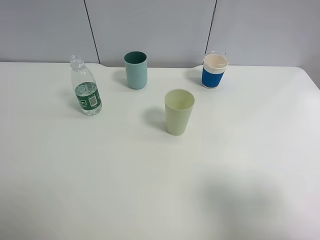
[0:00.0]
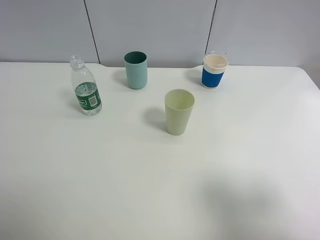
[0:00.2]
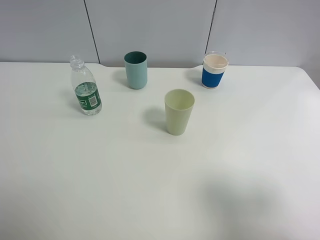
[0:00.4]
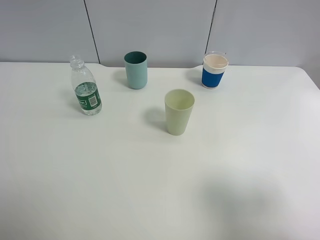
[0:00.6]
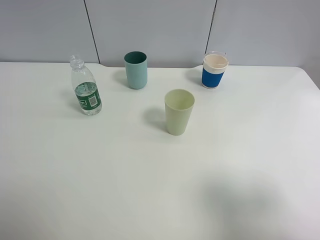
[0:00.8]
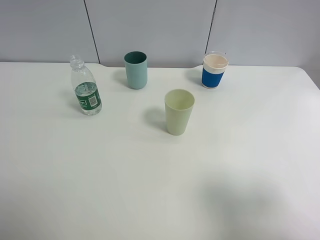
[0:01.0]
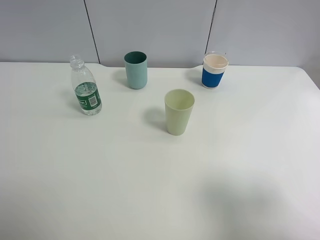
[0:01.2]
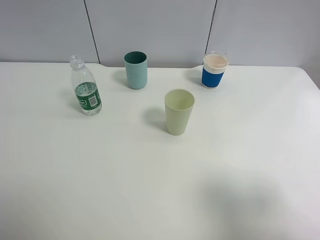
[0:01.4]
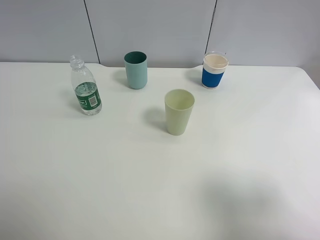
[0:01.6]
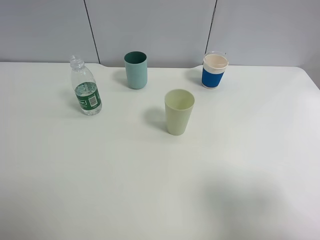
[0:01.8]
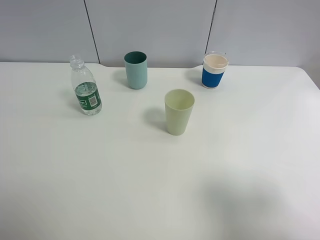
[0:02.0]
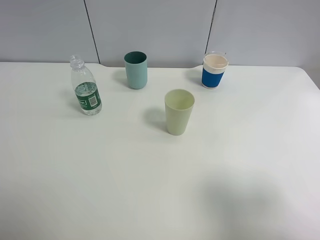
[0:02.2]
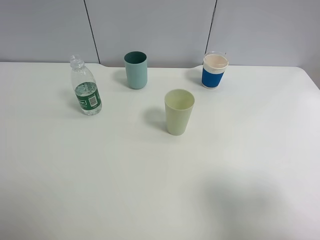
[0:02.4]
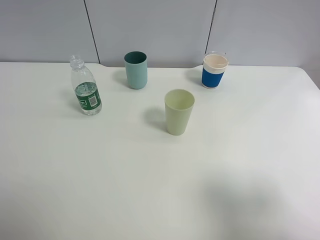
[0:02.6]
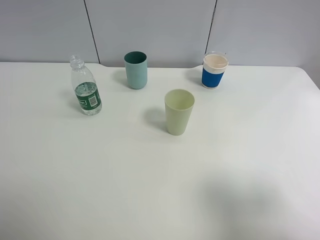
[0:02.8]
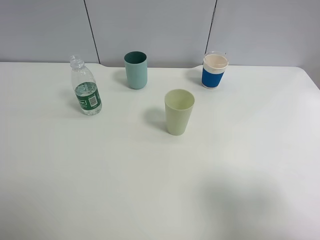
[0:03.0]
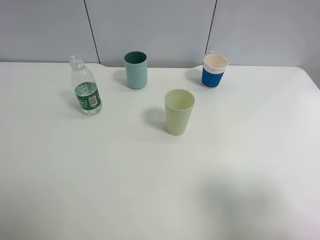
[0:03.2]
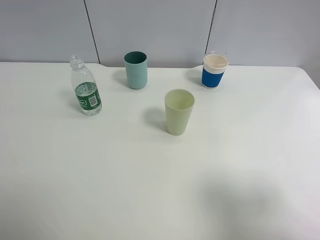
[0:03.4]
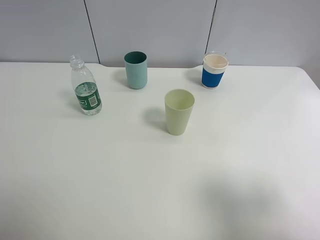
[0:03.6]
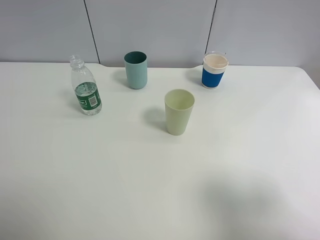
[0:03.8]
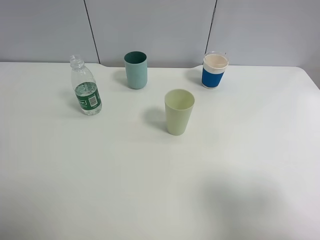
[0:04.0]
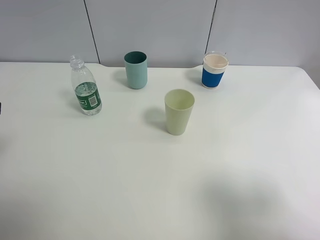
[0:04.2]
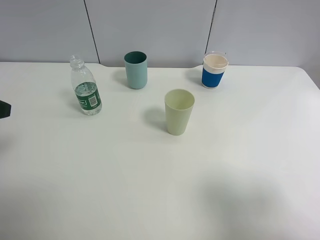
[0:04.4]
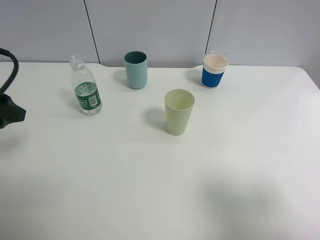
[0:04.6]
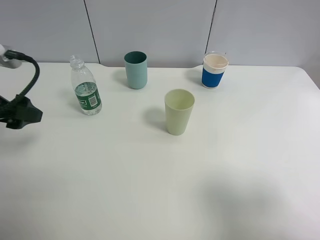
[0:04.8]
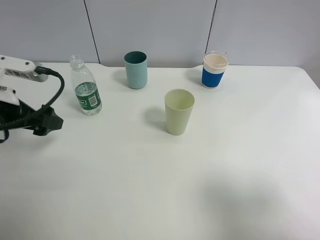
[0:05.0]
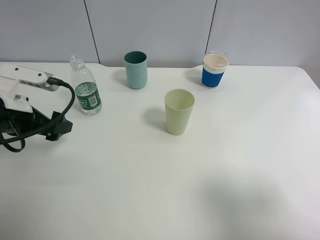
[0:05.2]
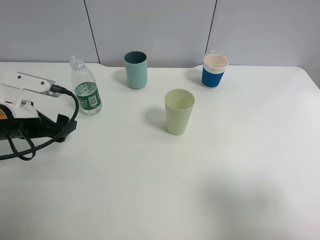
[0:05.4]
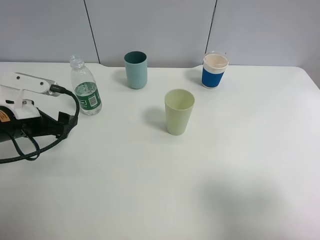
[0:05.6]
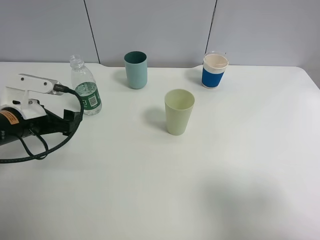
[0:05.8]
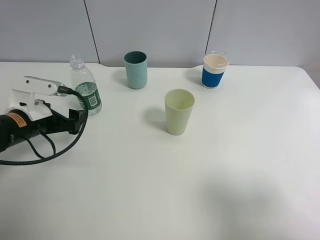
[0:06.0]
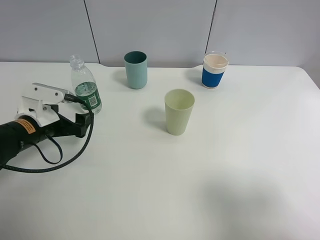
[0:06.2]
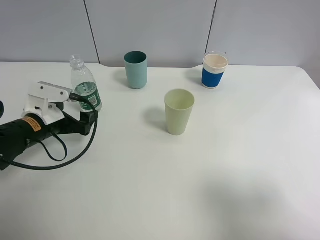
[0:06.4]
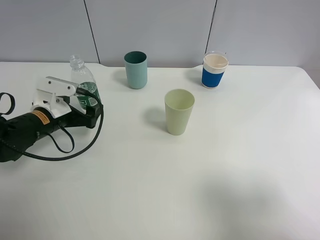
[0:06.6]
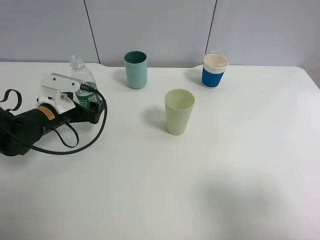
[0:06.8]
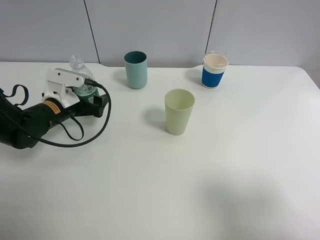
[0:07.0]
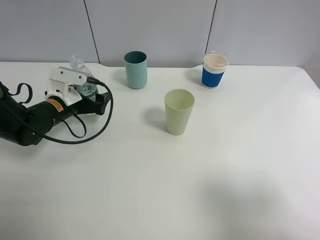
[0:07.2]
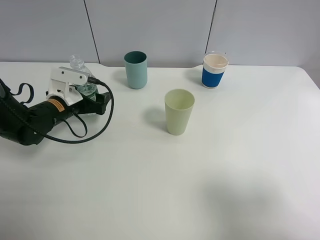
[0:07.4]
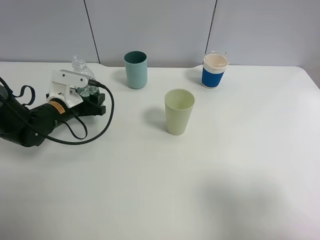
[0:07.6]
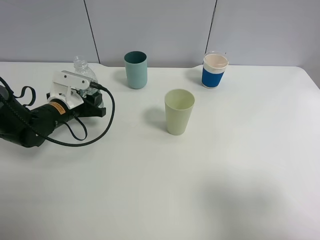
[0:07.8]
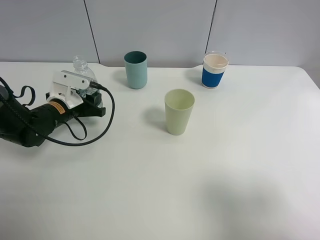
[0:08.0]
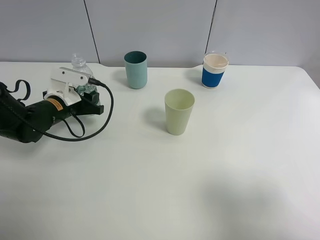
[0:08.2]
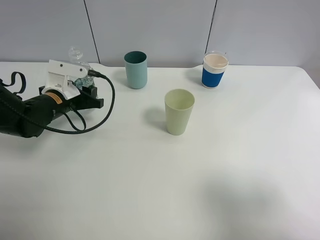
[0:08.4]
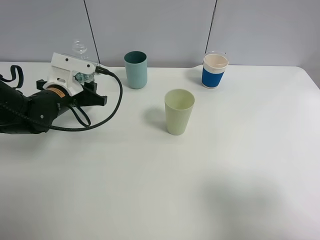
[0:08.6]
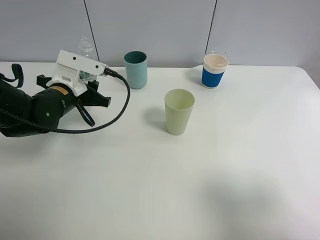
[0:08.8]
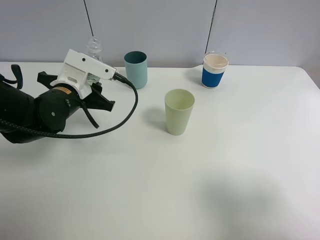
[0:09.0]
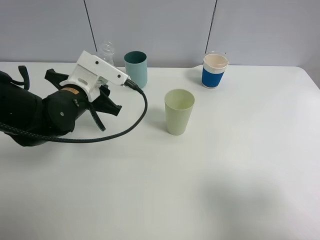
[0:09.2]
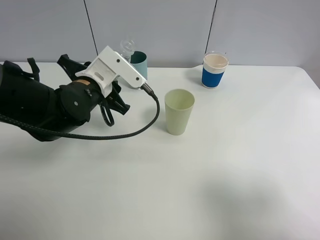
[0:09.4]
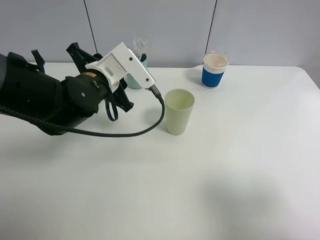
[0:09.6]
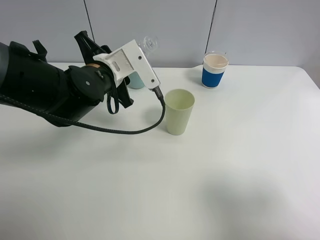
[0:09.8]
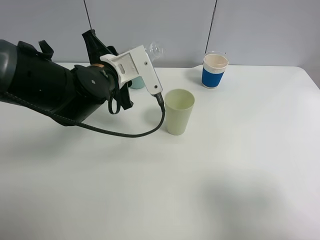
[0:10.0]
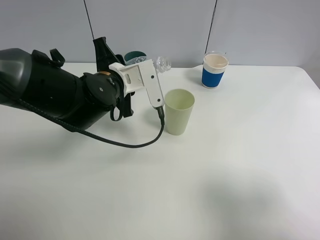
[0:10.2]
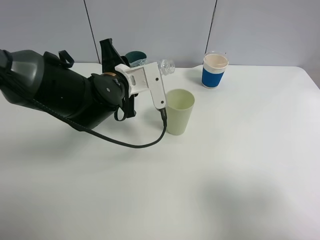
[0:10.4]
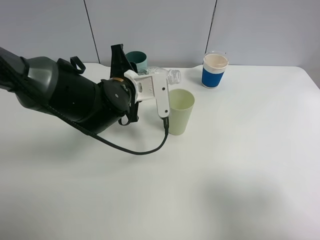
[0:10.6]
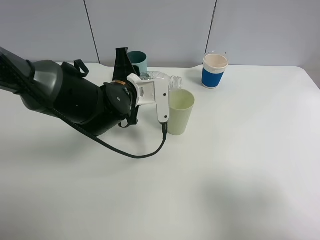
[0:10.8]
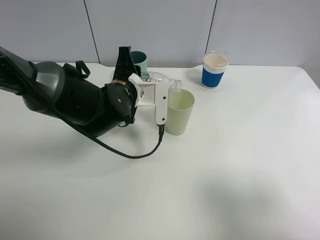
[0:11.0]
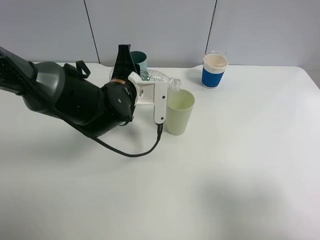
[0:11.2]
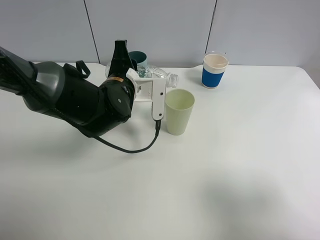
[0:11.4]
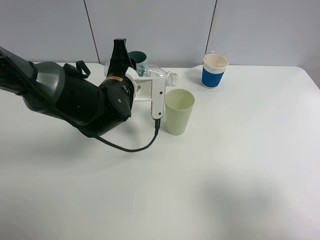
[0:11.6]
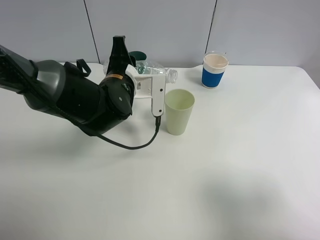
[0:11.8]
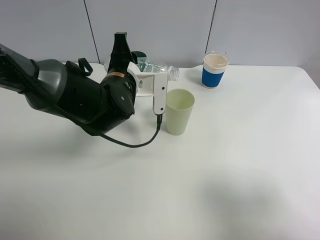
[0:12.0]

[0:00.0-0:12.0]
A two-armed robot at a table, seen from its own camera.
Task of the whole recording: use a clamp to hold the bottle of the drink, pour the beverage into a random cup, then clamp the cup containing the drink and pour the drink into another random cup.
Step, 0:00.0 to 0:08.4: Pick up the water bottle with left gripper.
0:00.0 to 0:03.0: Neither gripper changes place.
0:04.4 to 0:06.0: The left gripper travels downward and forward by roughly 15 cm.
0:06.0 to 0:07.6: The left gripper is displaced forward by roughly 10 cm, and closes.
0:07.6 to 0:09.0: The left gripper heads upward and to the right, covering some 10 cm.
0:09.0 to 0:10.4: The left gripper moves to the right, about 10 cm.
0:10.4 to 0:12.0: There are only small adjustments of the grippers.

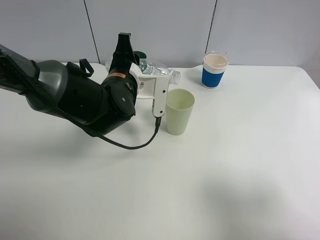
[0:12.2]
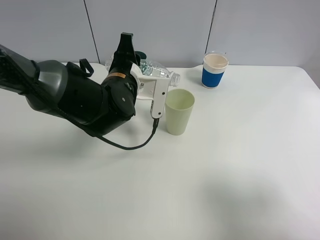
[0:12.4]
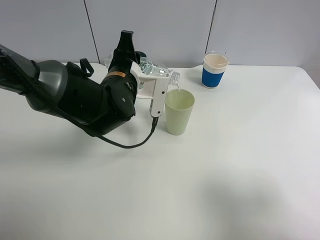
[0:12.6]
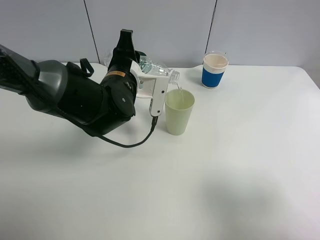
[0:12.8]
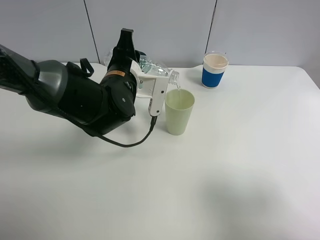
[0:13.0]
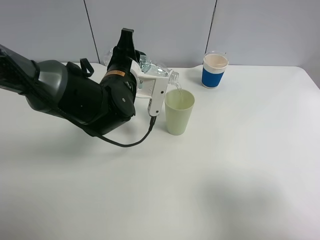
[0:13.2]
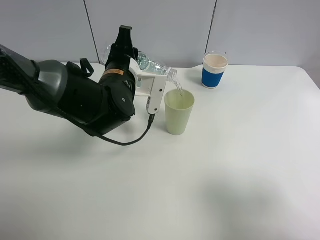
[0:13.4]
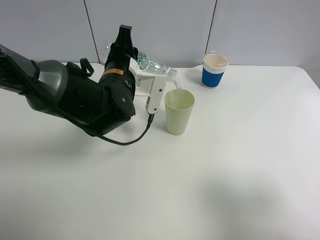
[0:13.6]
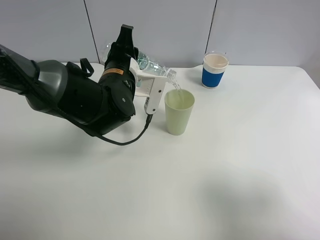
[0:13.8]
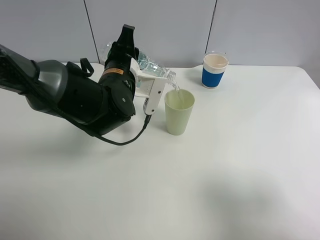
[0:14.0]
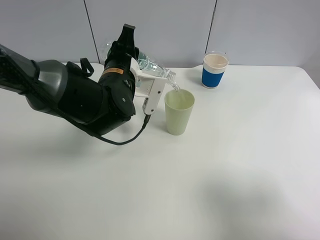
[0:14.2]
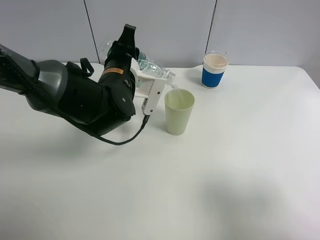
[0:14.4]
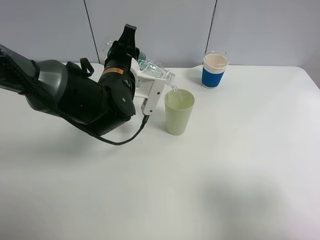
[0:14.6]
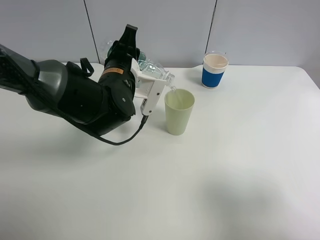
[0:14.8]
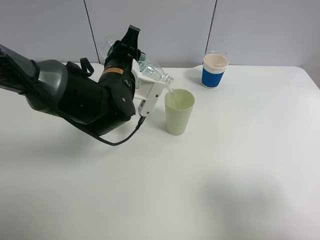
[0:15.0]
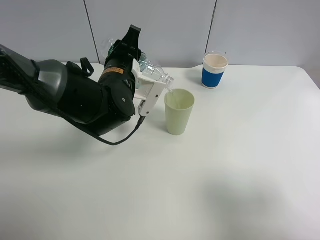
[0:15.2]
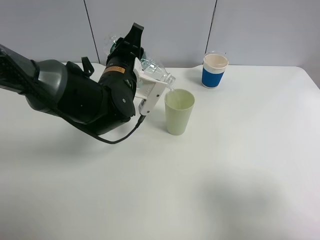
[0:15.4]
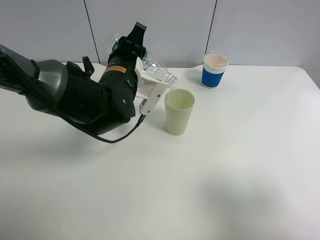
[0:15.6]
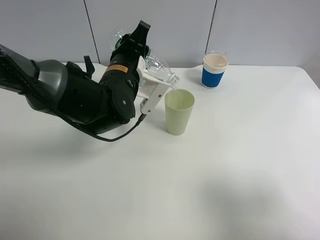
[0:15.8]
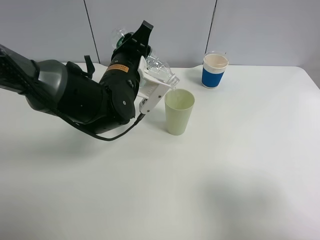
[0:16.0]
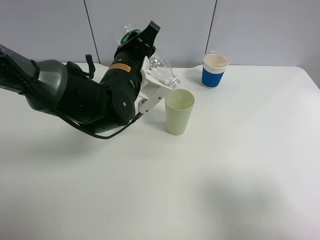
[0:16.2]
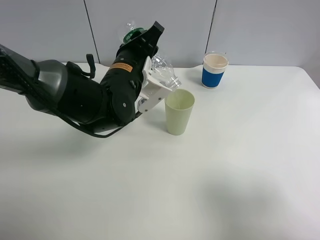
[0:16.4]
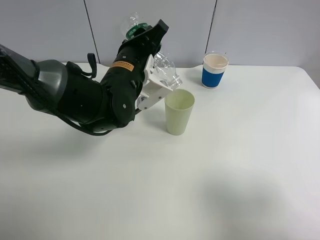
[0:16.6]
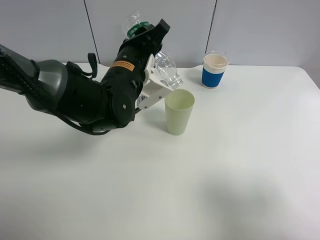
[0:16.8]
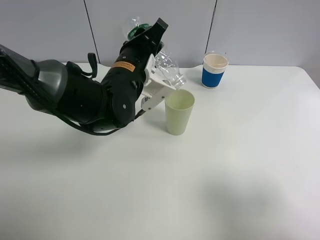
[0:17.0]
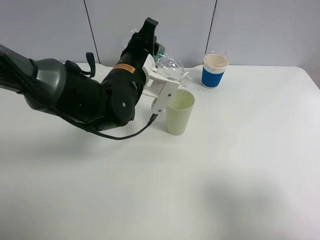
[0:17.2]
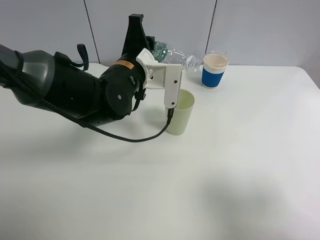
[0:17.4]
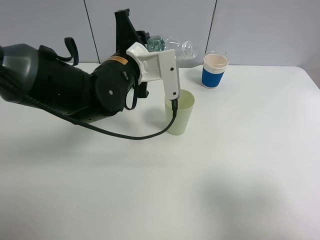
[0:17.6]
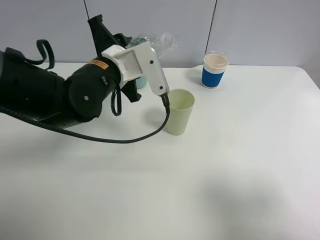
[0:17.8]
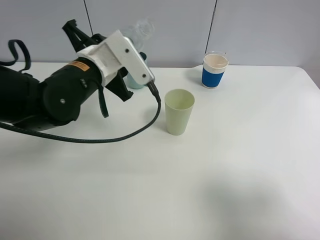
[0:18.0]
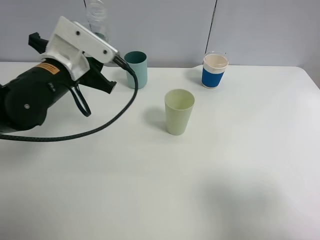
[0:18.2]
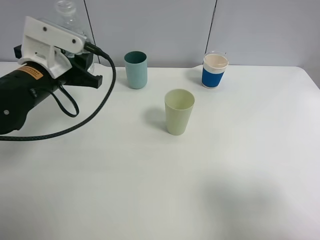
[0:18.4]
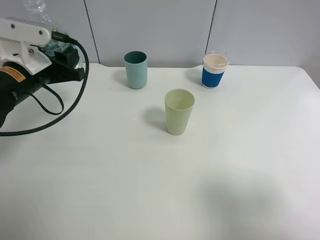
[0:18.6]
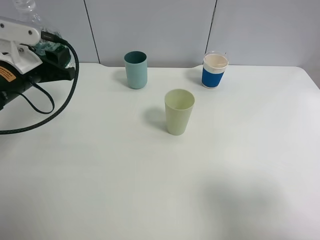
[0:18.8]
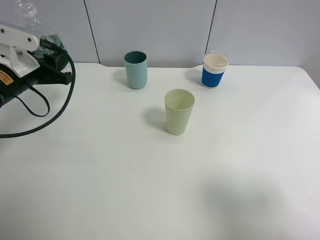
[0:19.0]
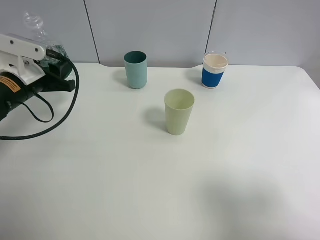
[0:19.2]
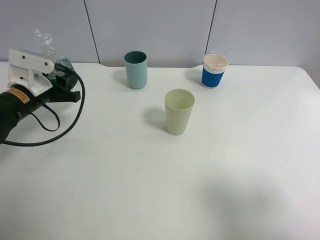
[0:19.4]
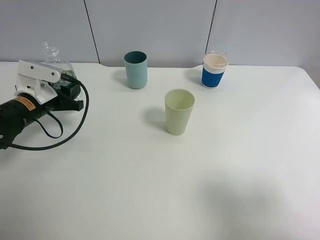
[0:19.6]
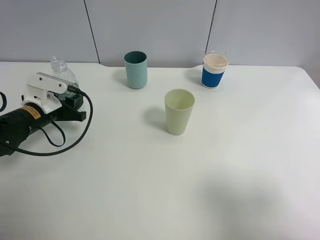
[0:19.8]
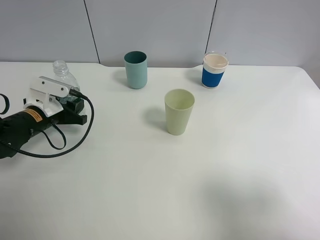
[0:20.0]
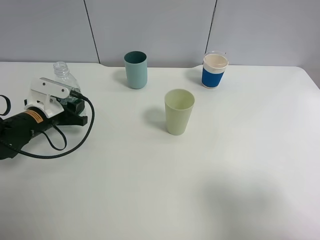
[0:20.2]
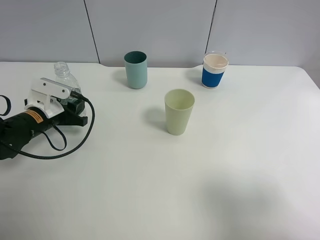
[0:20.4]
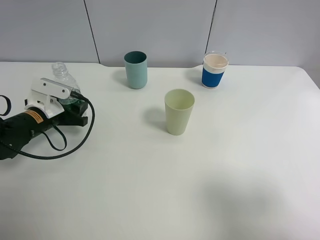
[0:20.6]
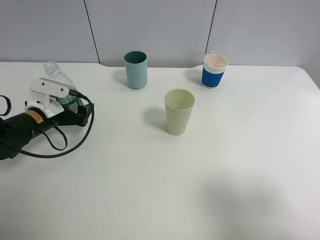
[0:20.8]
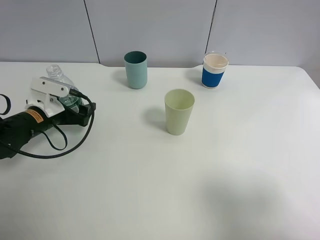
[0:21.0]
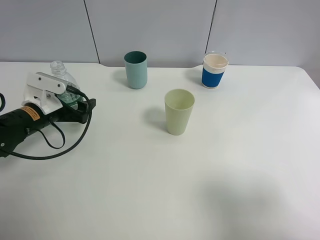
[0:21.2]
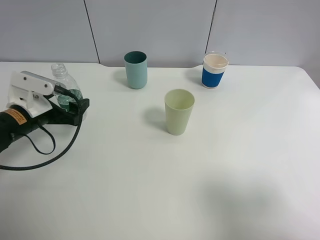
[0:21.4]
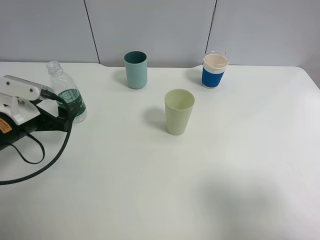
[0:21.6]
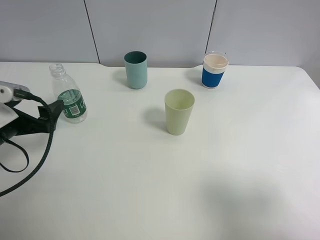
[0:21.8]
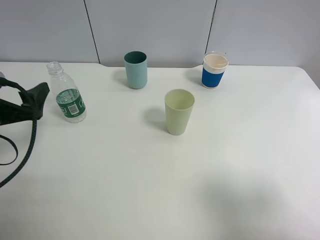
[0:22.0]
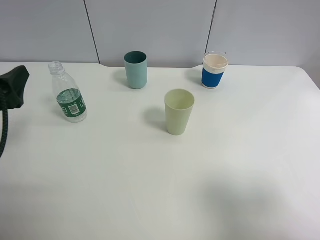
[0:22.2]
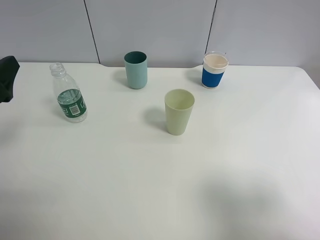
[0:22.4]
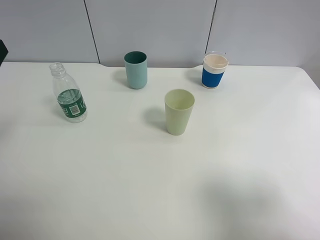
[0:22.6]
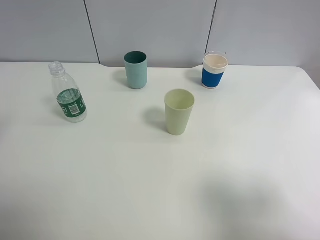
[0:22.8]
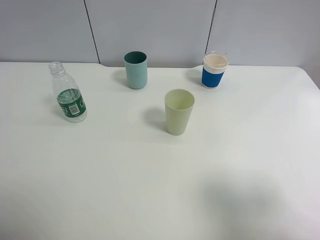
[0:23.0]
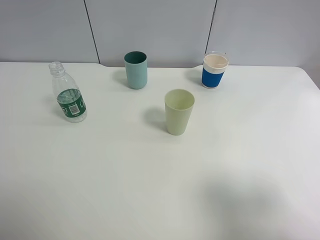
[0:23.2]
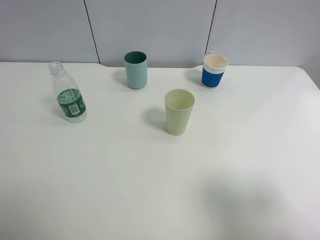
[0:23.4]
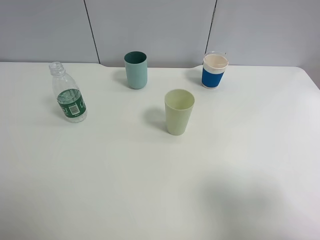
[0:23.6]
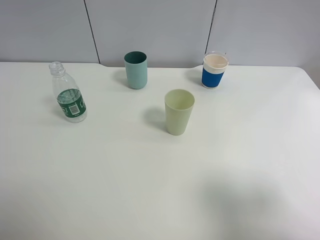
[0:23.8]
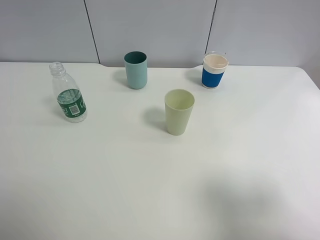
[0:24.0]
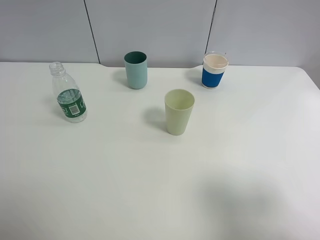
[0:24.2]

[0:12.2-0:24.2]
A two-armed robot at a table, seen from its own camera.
Task of the whole recording: use a clamp to hold the bottle of the drink, pour the beverage into a random cup, then clamp the cup containing the drink and pour the drink into another random cup.
Step, 0:12.2 to 0:17.4: Pour water into the green plastic cup with left gripper.
Step, 0:17.6 to 0:21.0: Place the water bottle on the table with left gripper.
0:12.2 to 0:13.8: The grippers stay close to where they were, moving slightly.
0:13.8 to 0:15.2: There are only small adjustments of the grippers.
0:16.6 to 0:18.2: The left gripper heads to the left, covering about 10 cm.
0:18.2 to 0:19.8: The left gripper is displaced downward and to the left by about 15 cm.
0:19.8 to 0:21.2: The left gripper opens.
0:21.2 to 0:22.6: The left gripper shifts some 20 cm upward and backward.
